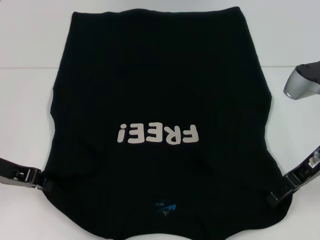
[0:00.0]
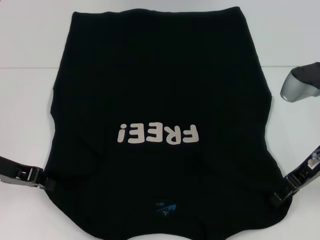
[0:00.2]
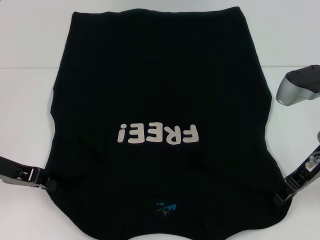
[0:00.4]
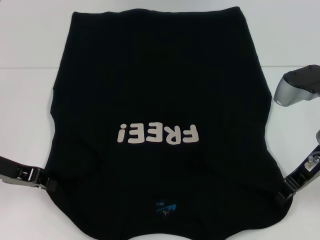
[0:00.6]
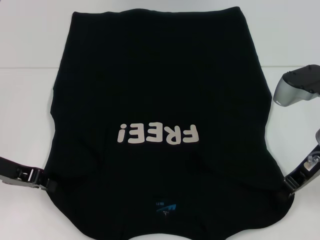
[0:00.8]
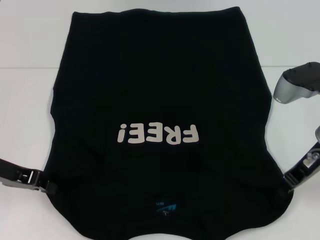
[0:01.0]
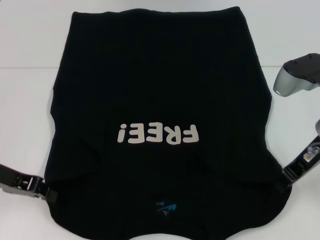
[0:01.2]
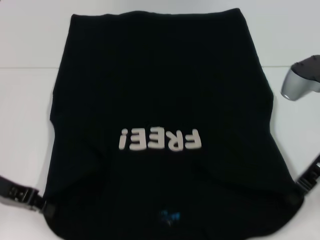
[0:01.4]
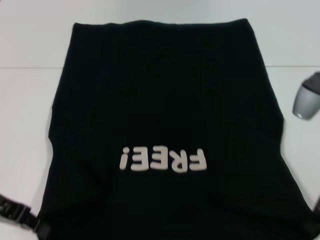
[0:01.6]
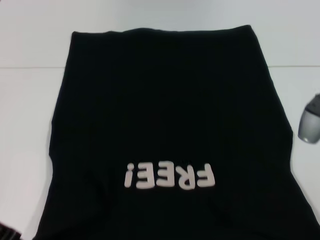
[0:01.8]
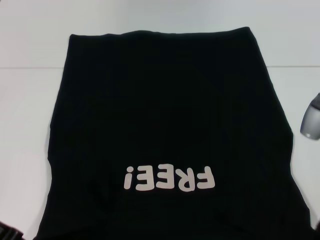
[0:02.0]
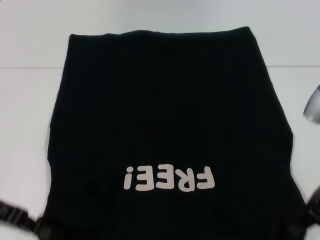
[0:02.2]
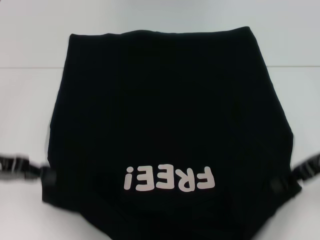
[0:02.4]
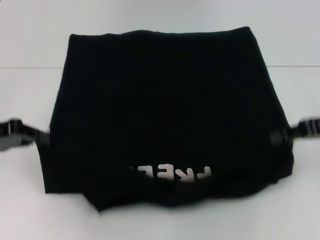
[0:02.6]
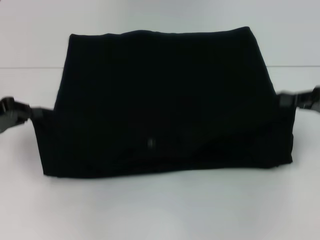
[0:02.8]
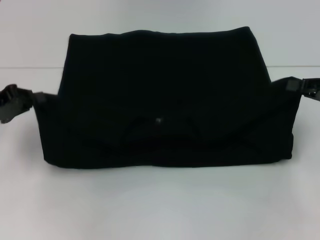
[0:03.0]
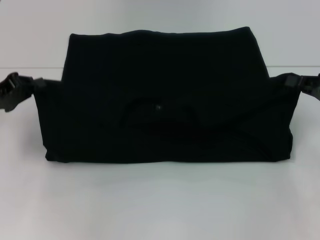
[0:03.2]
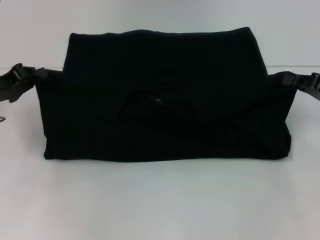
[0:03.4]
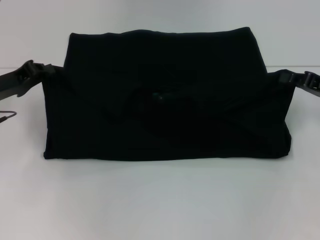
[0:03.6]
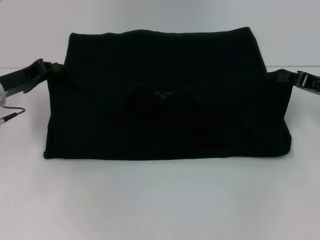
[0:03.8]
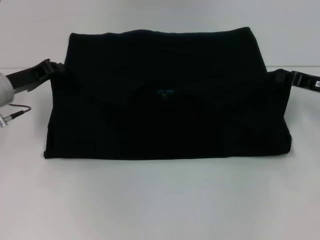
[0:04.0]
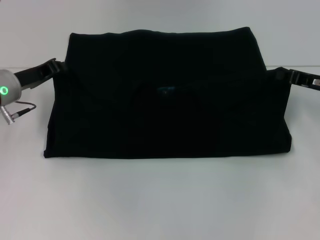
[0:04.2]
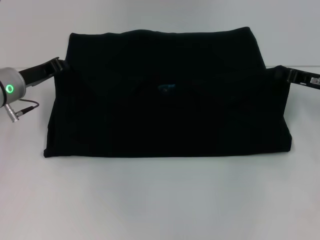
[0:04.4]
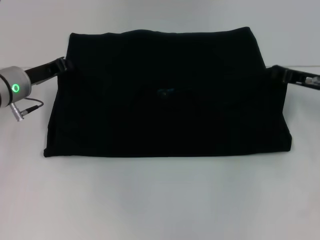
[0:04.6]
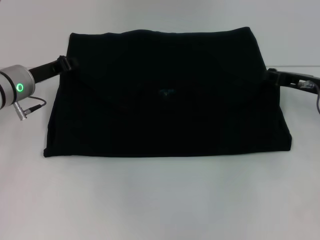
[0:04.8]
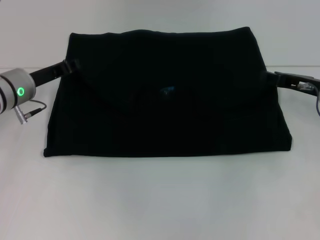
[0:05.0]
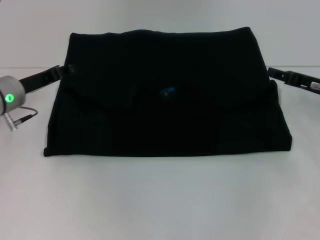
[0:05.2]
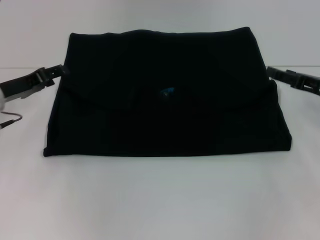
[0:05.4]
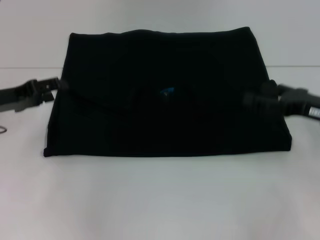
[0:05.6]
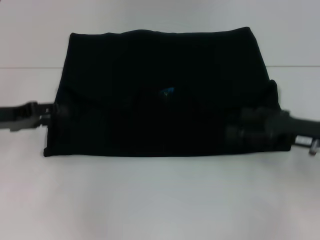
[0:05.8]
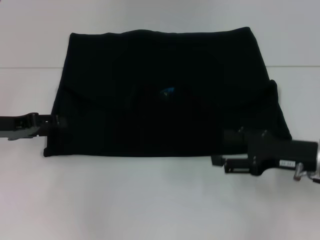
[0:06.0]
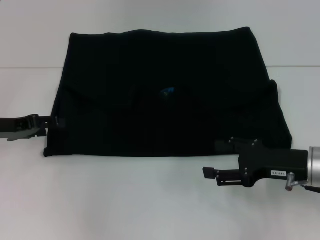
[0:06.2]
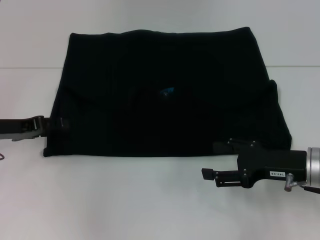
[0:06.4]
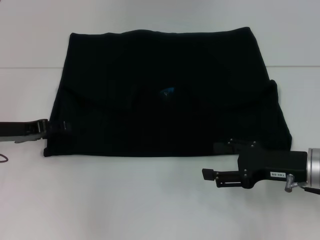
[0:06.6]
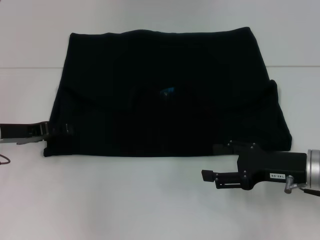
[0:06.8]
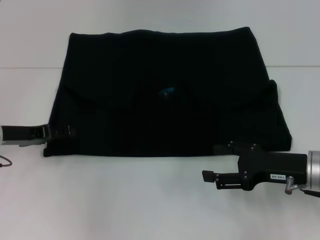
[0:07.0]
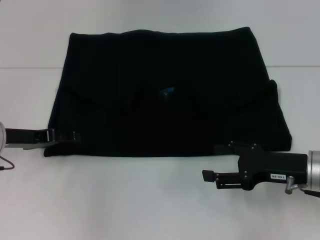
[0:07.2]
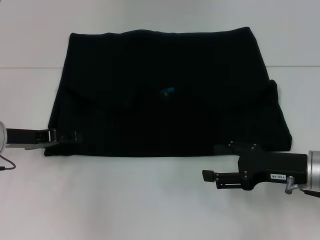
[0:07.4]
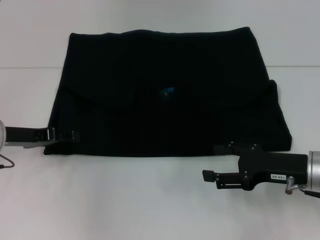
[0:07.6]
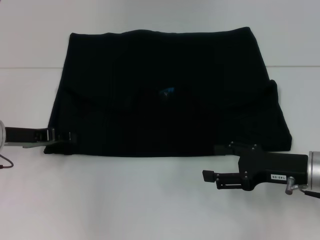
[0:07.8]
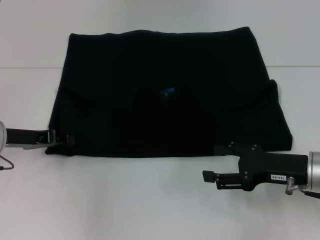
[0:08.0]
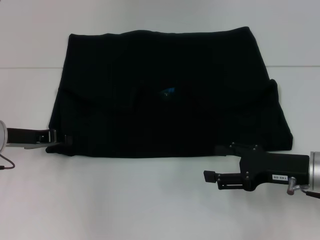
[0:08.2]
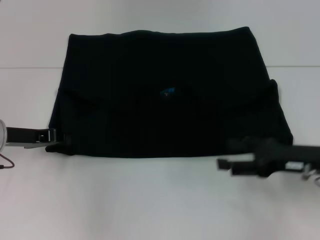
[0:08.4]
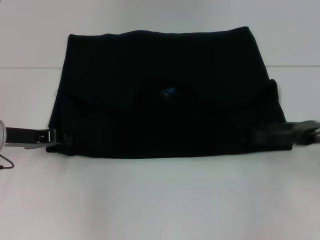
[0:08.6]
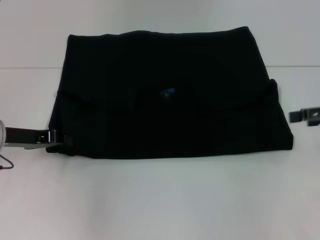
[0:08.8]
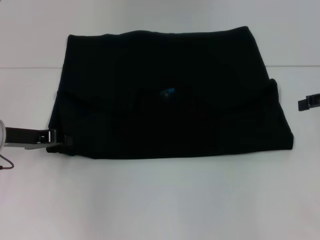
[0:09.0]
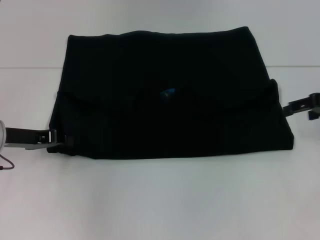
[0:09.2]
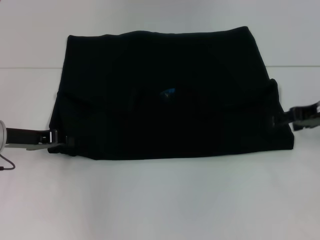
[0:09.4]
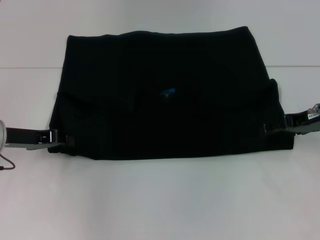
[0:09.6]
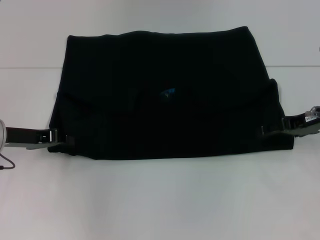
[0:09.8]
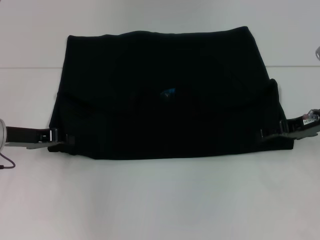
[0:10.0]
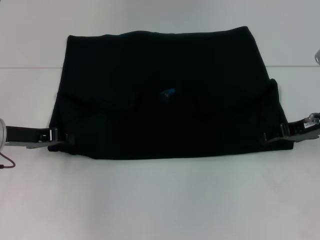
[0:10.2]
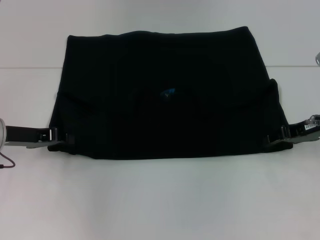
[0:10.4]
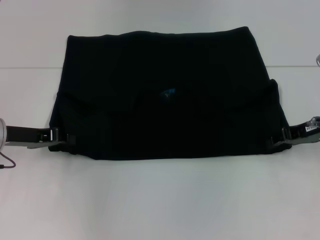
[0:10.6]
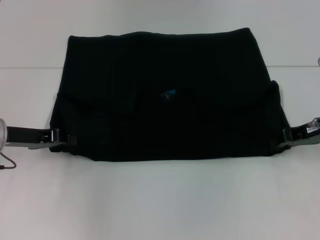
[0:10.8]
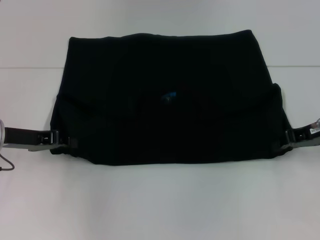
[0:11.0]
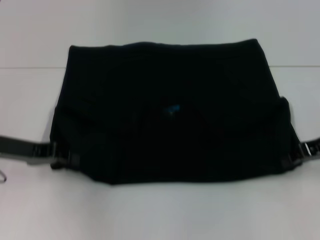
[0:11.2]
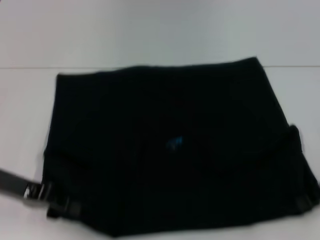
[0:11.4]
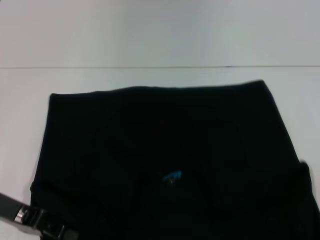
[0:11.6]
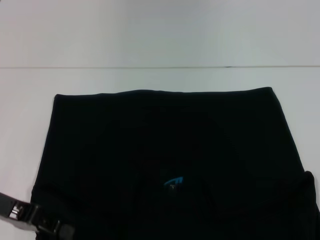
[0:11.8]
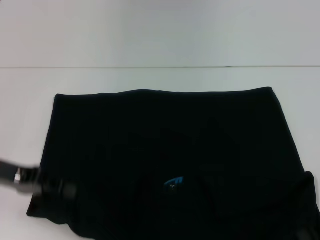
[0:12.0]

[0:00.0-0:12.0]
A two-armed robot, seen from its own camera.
Step, 1.8 to 5.4 s: Fold the clothes with your left hand.
Step, 1.8 to 5.4 s: Fold the clothes with your right hand.
Step, 5.6 to 11.6 s: Pull the clothes with your left hand.
Step, 5.6 to 11.6 s: Pull the clothes with your right hand.
0.0 to 1.6 s: The right gripper closes.
1.6 to 3.0 s: The left gripper changes place by approximately 5 cm. The right gripper is displaced to the right by some 10 cm.
3.0 to 4.4 s: The left gripper is displaced forward and to the right by about 10 cm. Meanwhile the right gripper moves forward, roughly 5 cm.
4.4 to 6.0 s: The left gripper goes some 10 cm backward and to the left, and opens, while the right gripper moves backward, roughly 10 cm, and opens.
6.0 to 7.6 s: There are only small adjustments of the grippers.
7.6 to 9.0 s: The right gripper shifts about 20 cm upward, to the right and forward, while the left gripper closes its fingers.
9.0 to 10.4 s: The right gripper goes about 10 cm to the left and downward.
10.4 to 12.0 s: The left gripper is displaced backward by approximately 5 cm, while the right gripper heads backward, covering approximately 10 cm, and closes.

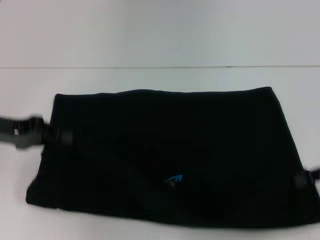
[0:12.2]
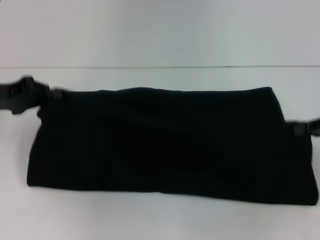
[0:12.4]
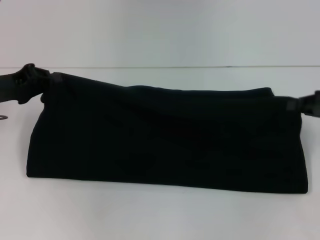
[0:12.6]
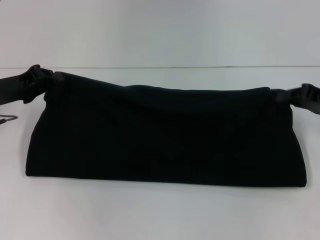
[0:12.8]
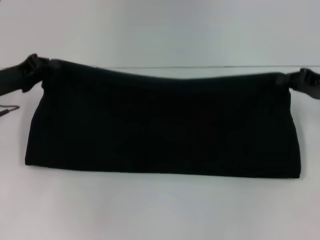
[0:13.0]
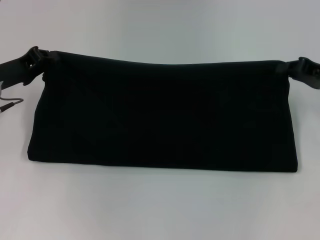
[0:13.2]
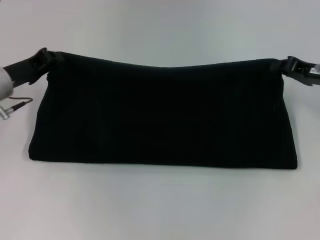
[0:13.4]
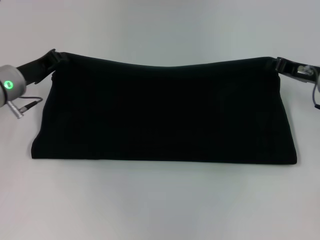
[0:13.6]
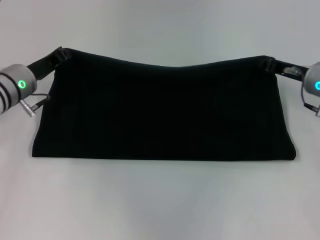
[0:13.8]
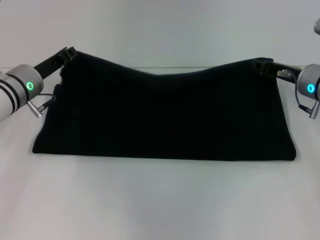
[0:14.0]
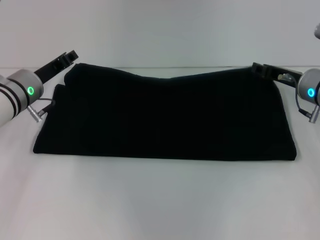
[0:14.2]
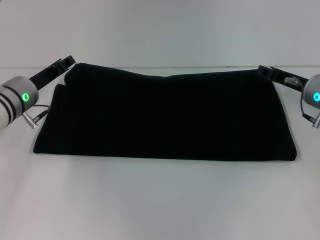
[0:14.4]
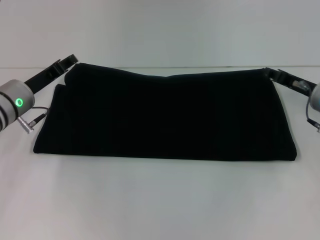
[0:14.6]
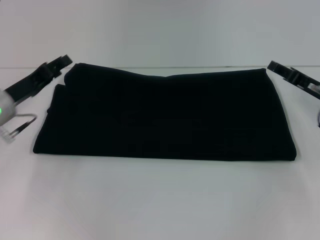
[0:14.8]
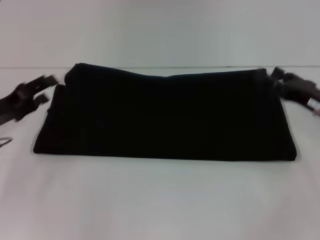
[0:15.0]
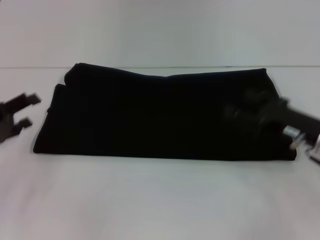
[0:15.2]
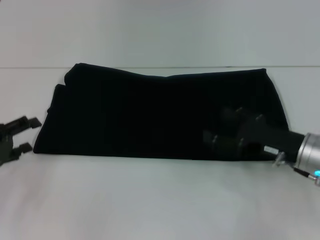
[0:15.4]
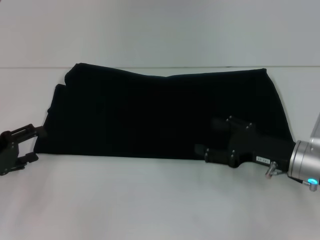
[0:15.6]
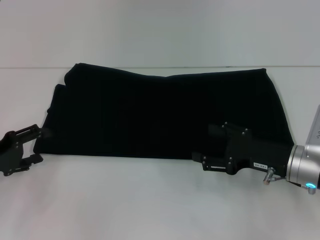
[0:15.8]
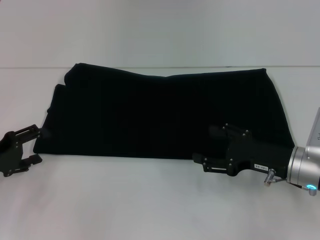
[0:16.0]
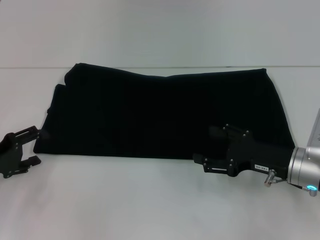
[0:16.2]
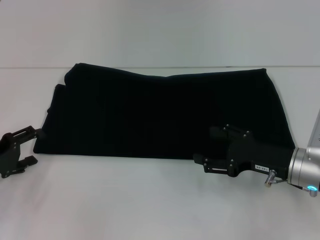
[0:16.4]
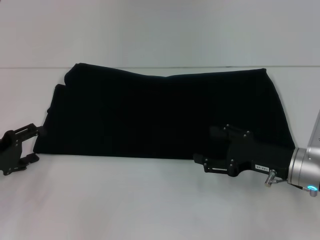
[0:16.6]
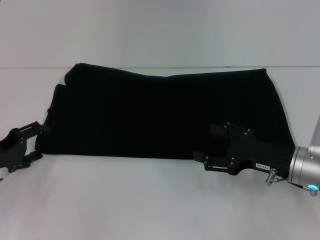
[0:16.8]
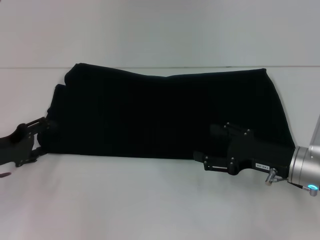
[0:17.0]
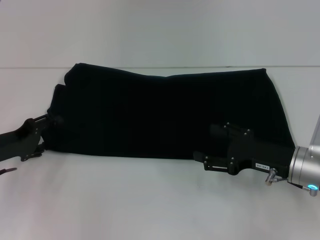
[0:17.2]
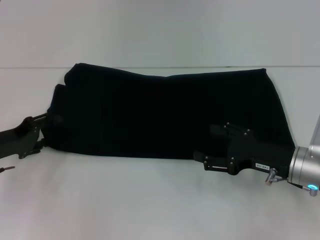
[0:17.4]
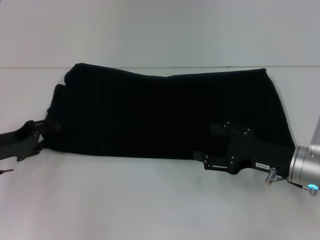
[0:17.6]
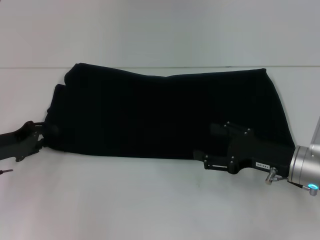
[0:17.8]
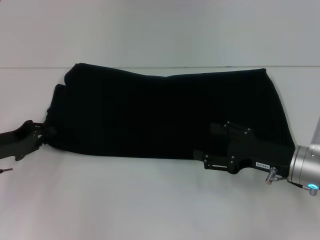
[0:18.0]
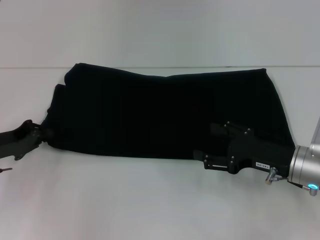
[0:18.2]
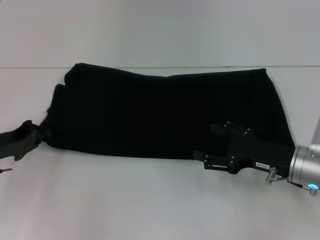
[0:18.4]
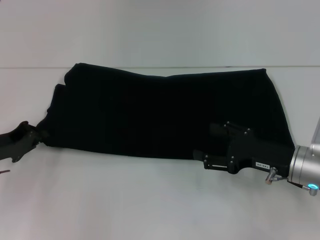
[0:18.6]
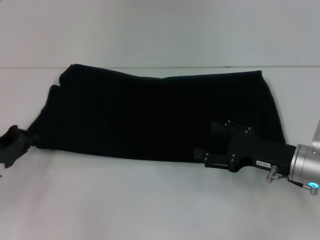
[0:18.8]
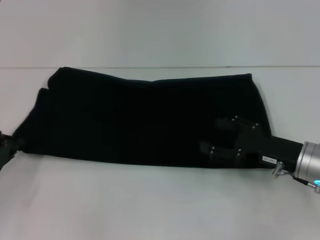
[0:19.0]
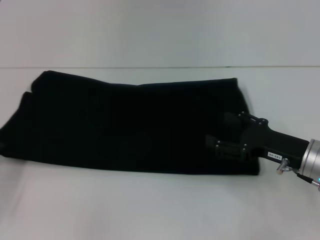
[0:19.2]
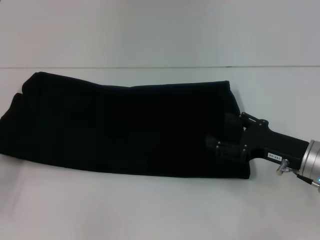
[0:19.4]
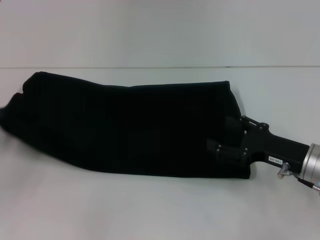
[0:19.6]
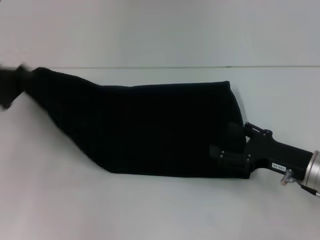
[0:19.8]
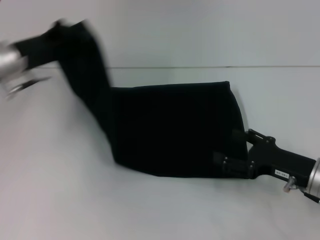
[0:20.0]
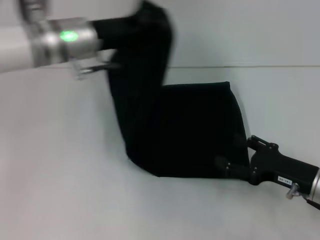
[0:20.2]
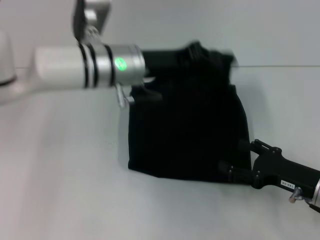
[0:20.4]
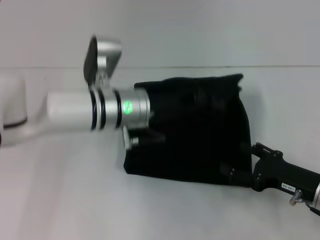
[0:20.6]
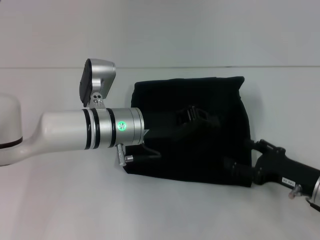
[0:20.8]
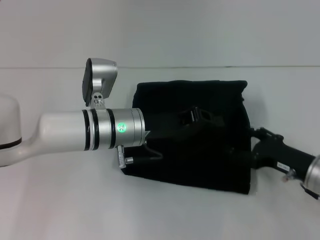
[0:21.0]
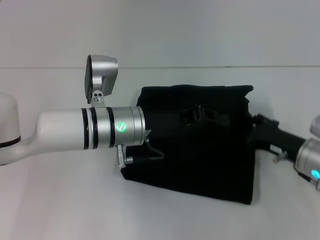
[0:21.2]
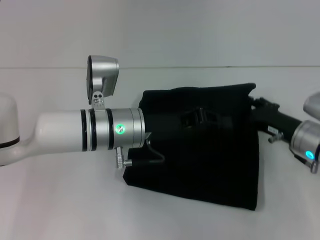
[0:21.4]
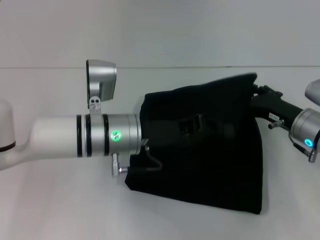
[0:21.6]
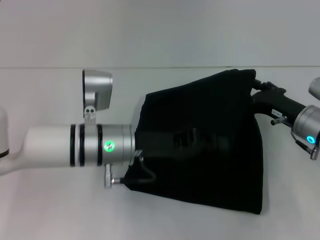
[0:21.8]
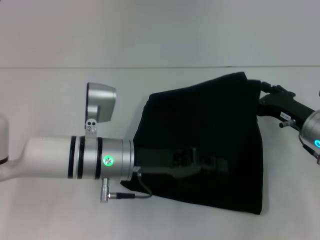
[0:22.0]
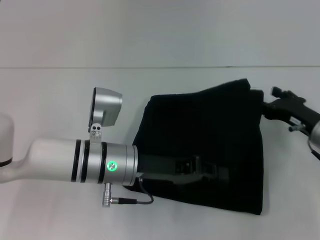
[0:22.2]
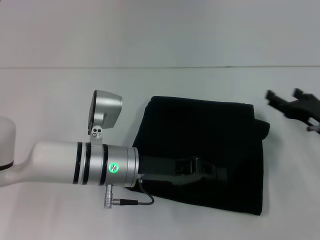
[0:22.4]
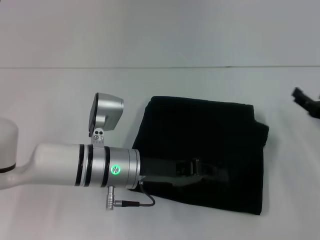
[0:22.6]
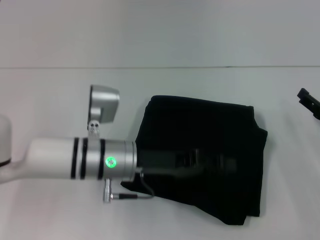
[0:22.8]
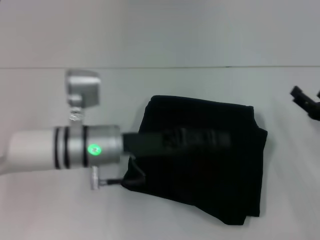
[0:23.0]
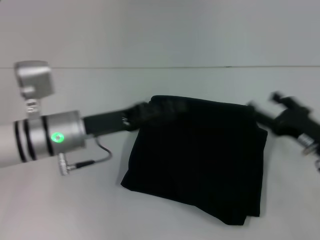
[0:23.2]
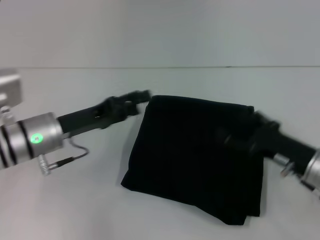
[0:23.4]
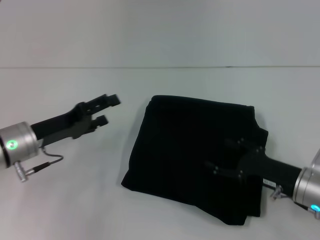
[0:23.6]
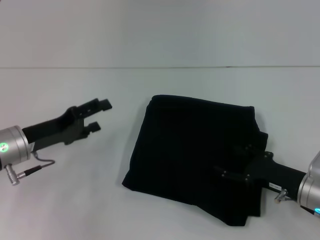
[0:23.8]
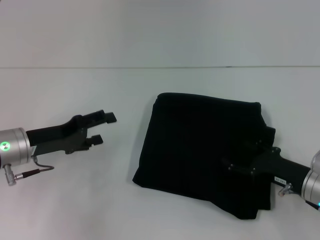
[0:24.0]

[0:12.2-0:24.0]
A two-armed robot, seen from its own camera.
Step, 12.2 to 14.8 s: Fold the clothes with your right hand.
Step, 12.2 to 22.8 s: Fold the clothes with your left hand.
12.2 to 13.6 s: The right gripper goes about 10 cm forward and to the left, while the left gripper is displaced forward by approximately 10 cm.
13.6 to 15.2 s: The right gripper travels backward by approximately 10 cm, and opens its fingers. Meanwhile the left gripper is displaced backward and to the left by some 15 cm, and opens.
15.2 to 16.6 s: There are only small adjustments of the grippers.
16.6 to 18.2 s: The left gripper closes.
18.2 to 19.6 s: The left gripper shifts roughly 5 cm to the left.
19.6 to 21.0 s: The left gripper travels to the right by approximately 30 cm.
21.0 to 22.6 s: The right gripper travels to the right by some 5 cm.
22.6 to 24.0 s: The right gripper moves to the left, about 5 cm, while the left gripper is displaced to the left by roughly 15 cm, and opens.
